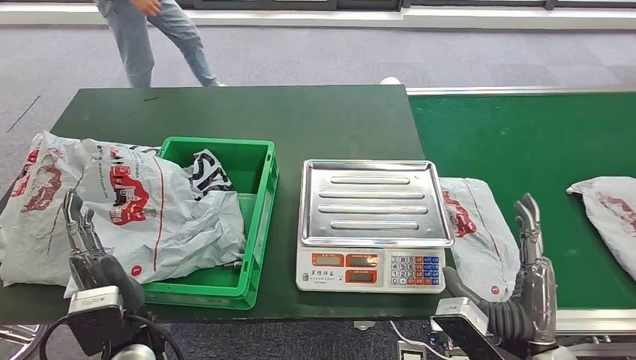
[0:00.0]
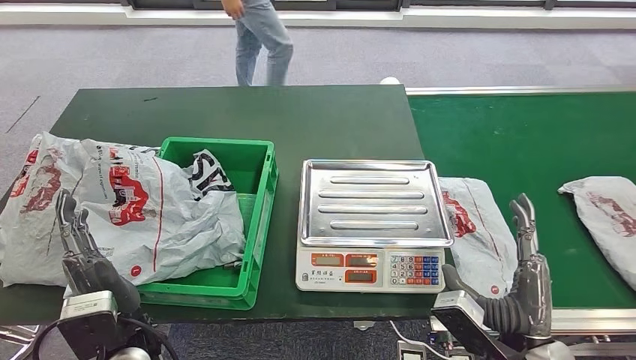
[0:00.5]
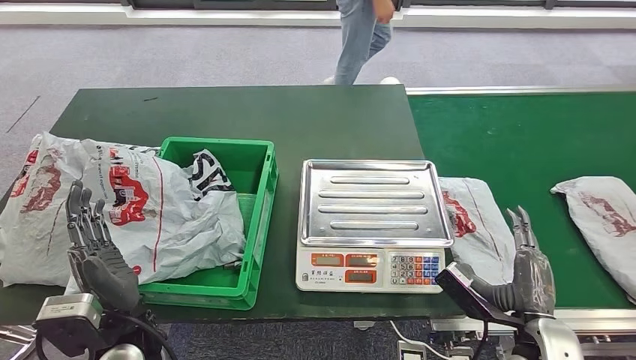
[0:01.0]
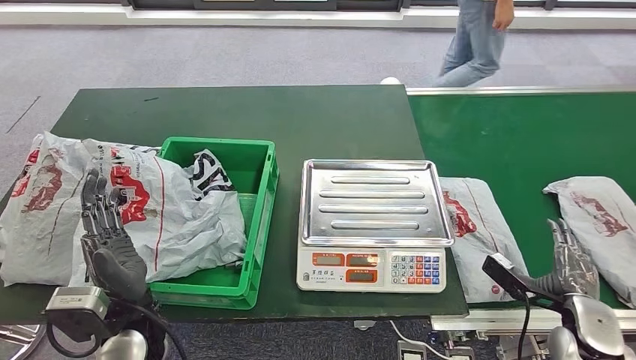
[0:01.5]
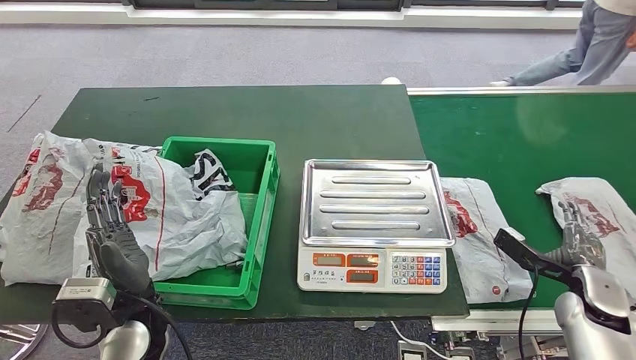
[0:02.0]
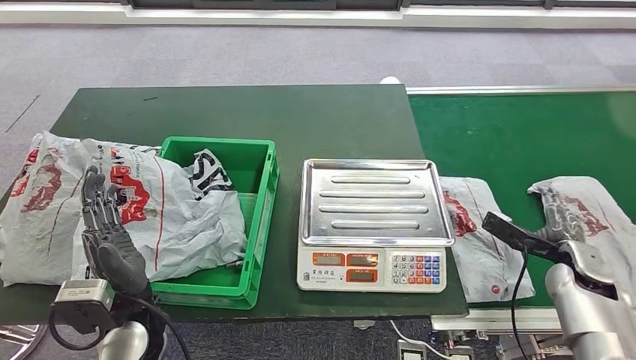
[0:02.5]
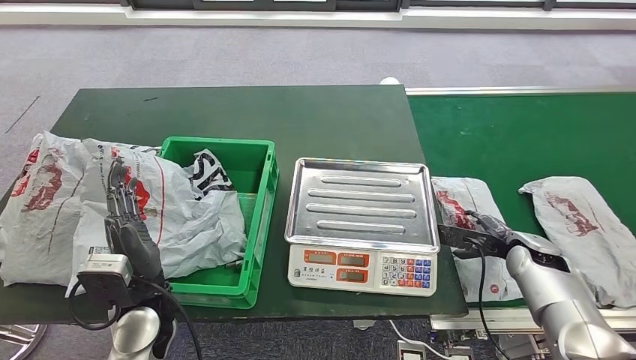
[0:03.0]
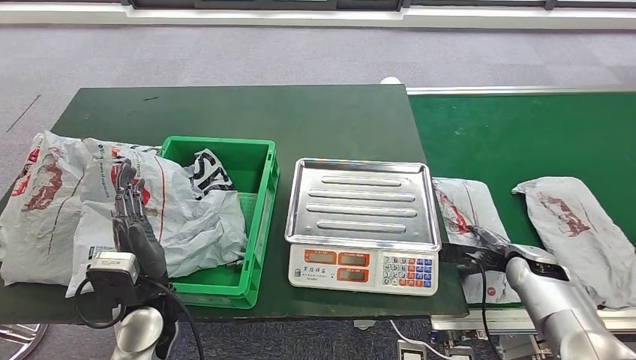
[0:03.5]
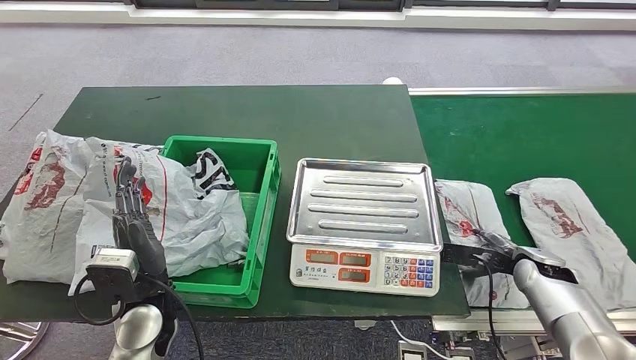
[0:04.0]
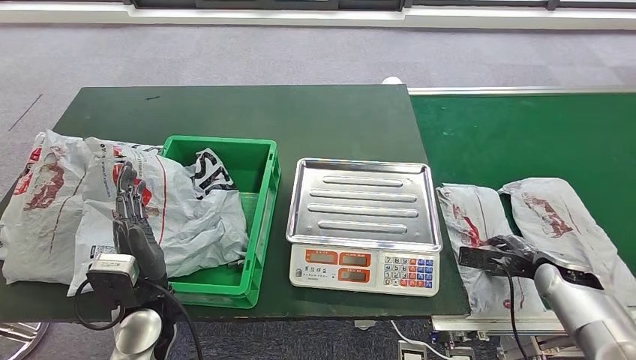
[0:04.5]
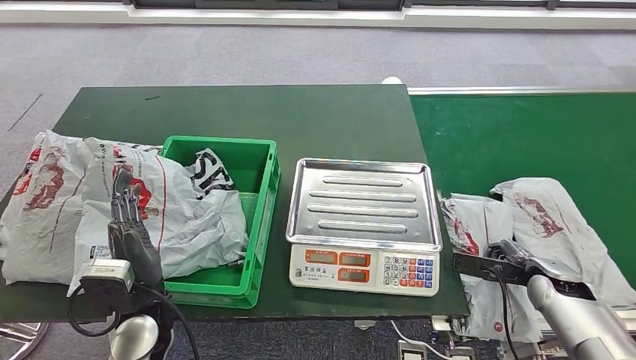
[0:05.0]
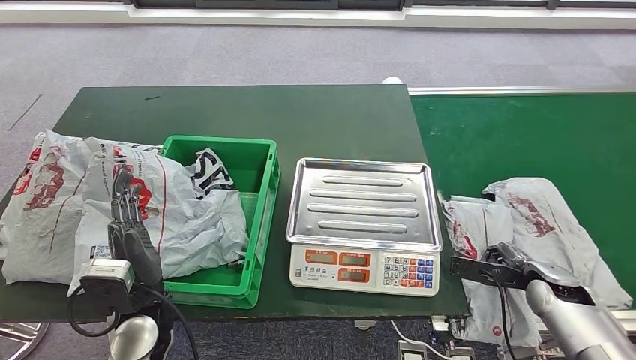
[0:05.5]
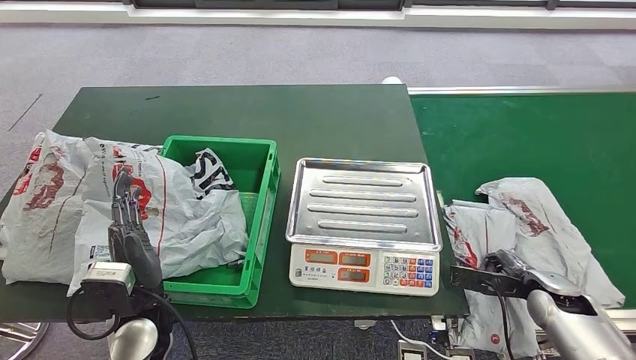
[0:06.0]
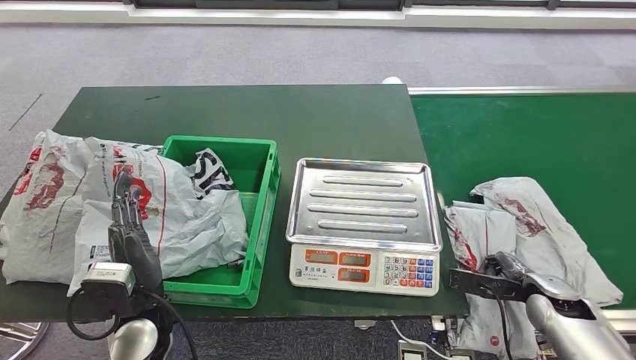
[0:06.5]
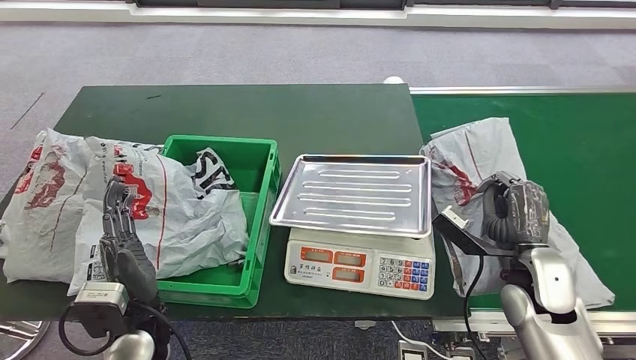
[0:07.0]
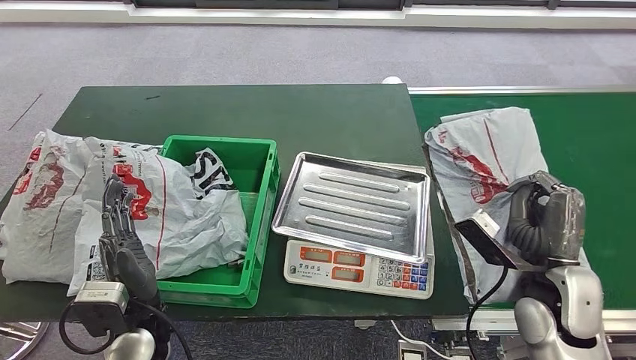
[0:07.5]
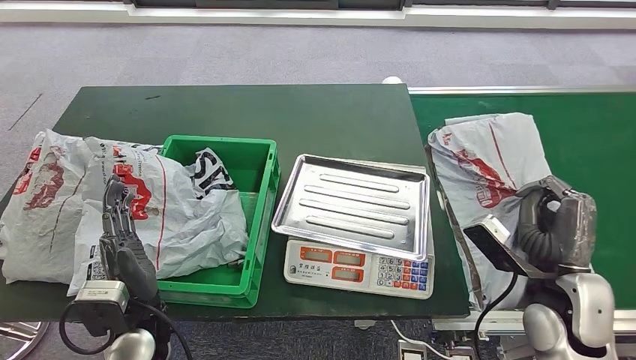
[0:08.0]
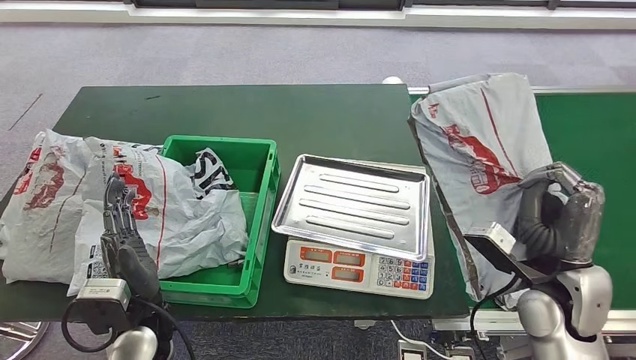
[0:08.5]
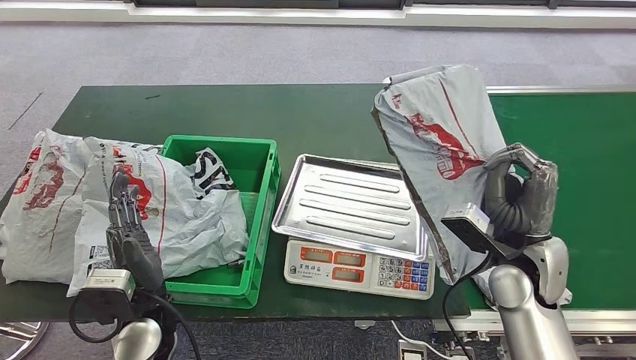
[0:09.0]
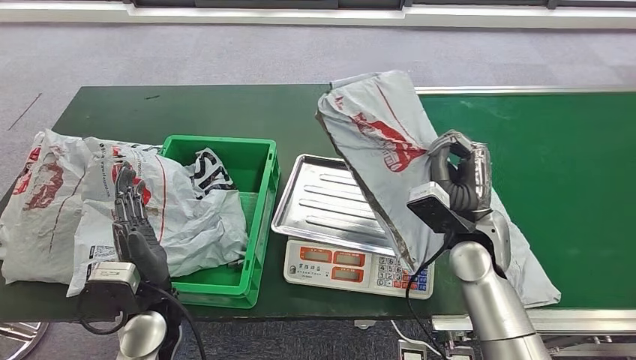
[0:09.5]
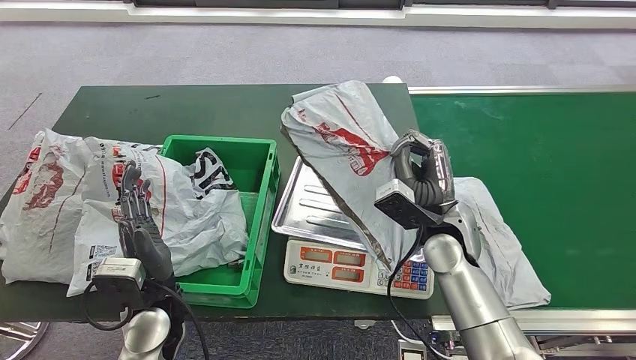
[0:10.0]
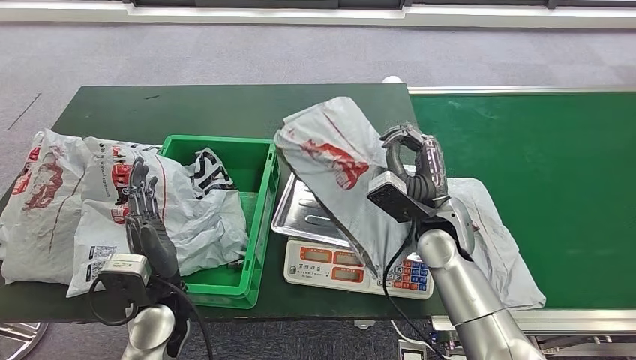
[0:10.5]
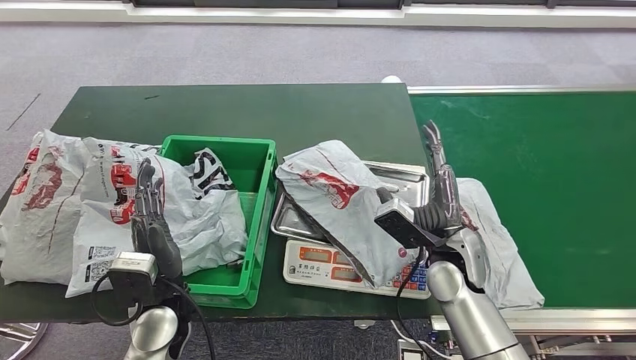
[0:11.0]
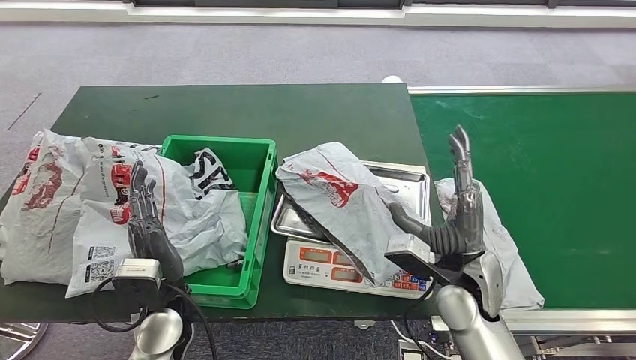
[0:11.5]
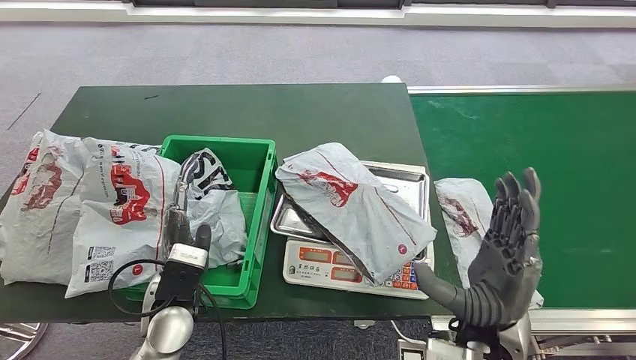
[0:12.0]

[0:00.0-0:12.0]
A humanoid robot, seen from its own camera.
Step, 0:01.0 to 0:09.0: Pick up the parcel from the conveyor belt.
0:04.0 to 0:06.0: The hands move only a little.

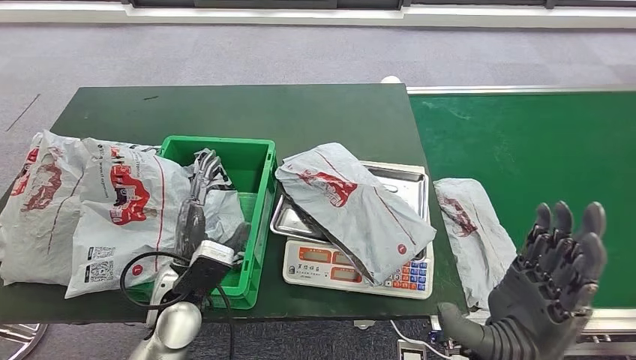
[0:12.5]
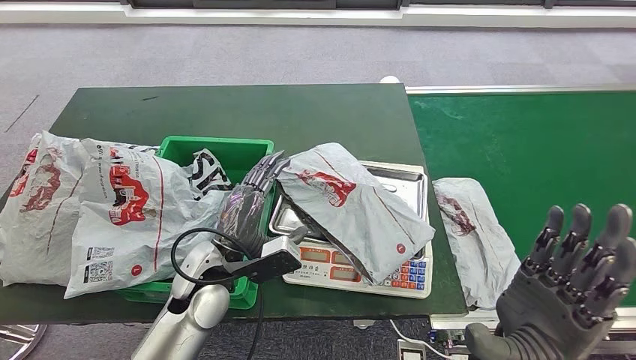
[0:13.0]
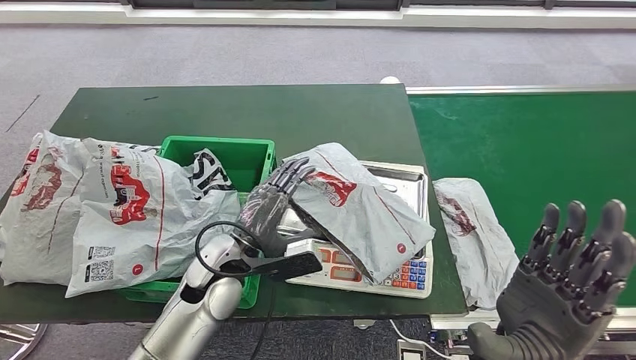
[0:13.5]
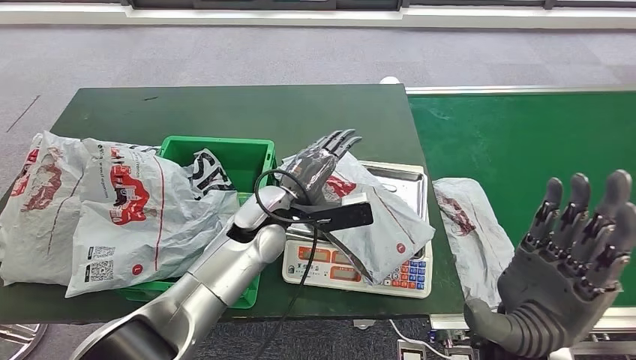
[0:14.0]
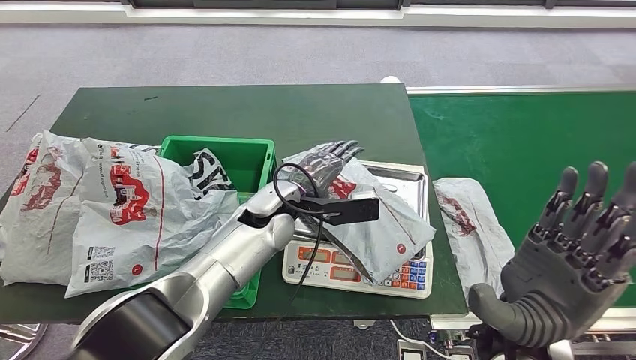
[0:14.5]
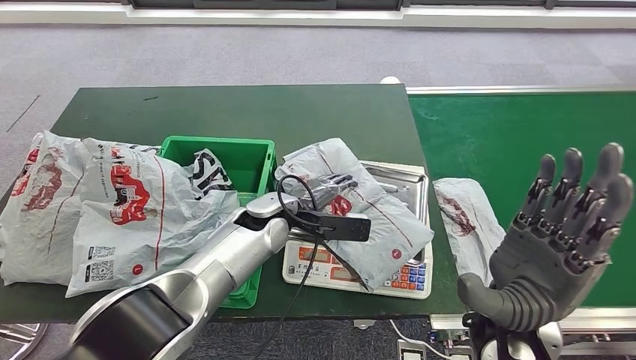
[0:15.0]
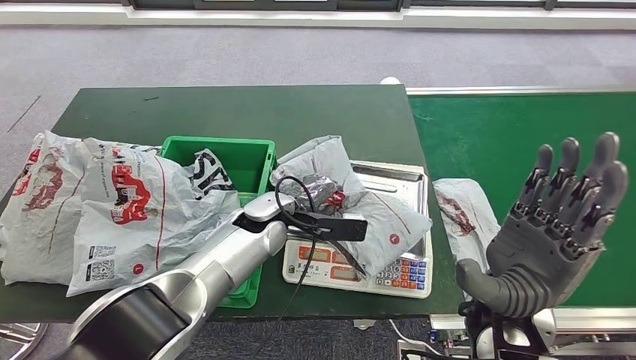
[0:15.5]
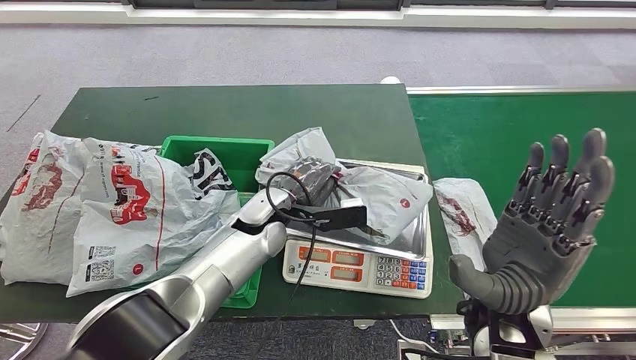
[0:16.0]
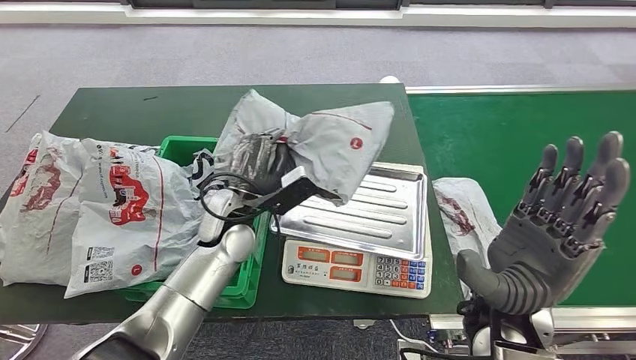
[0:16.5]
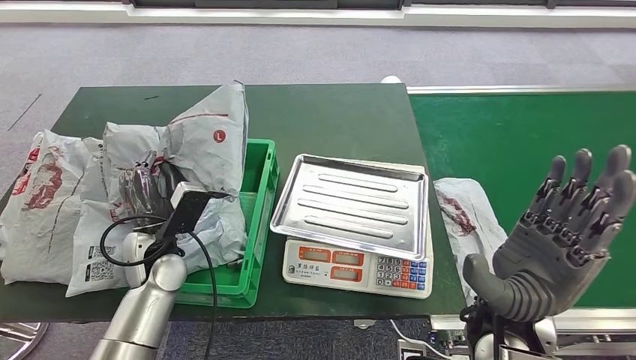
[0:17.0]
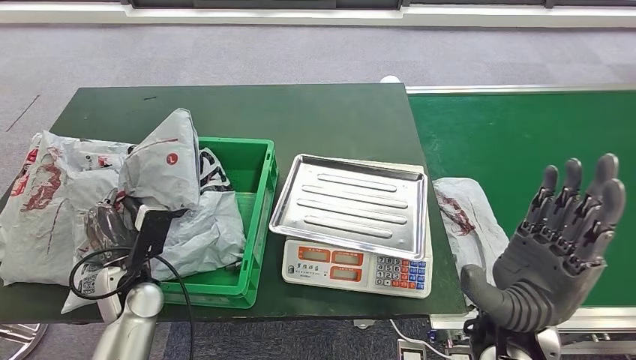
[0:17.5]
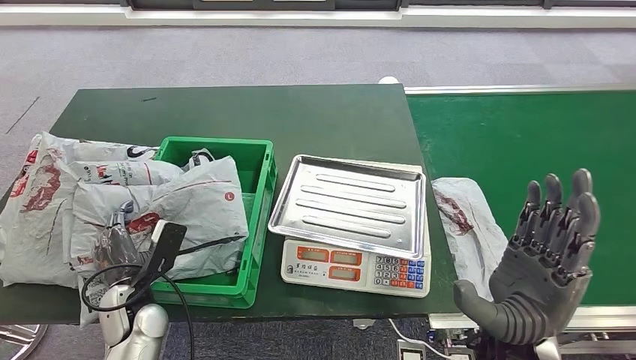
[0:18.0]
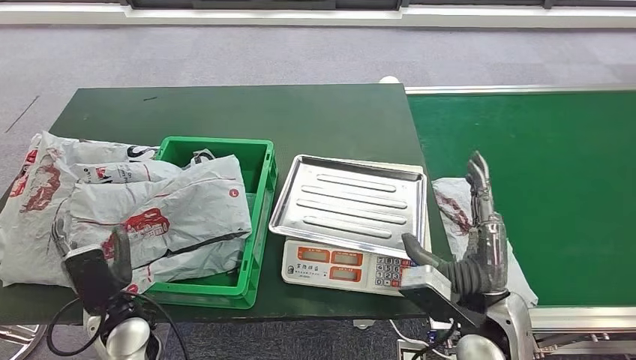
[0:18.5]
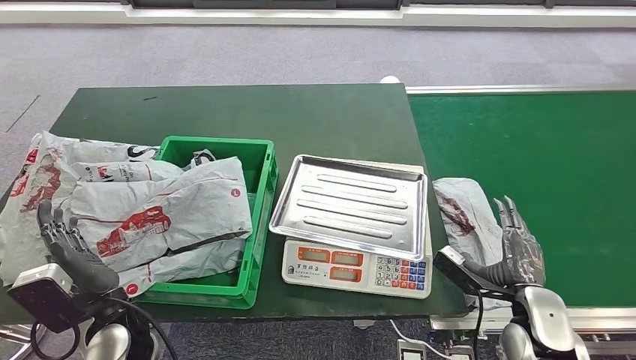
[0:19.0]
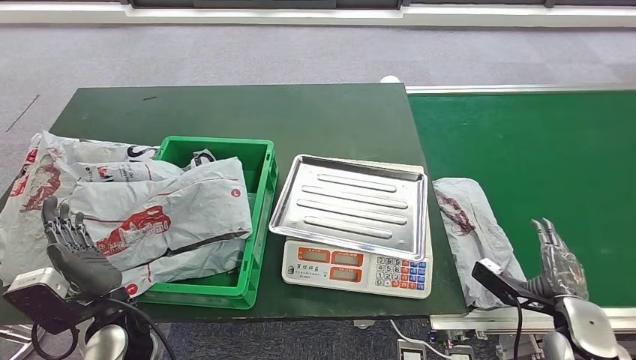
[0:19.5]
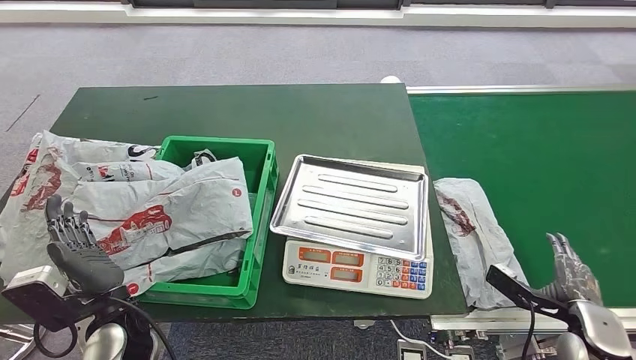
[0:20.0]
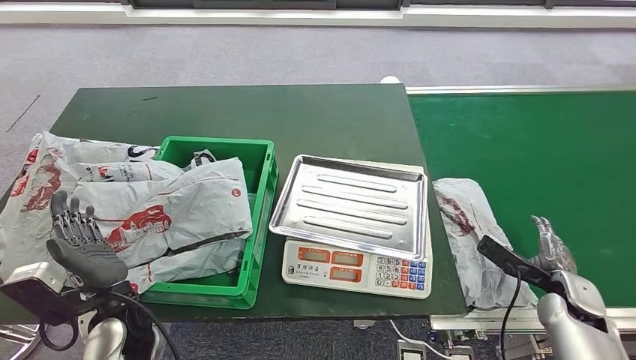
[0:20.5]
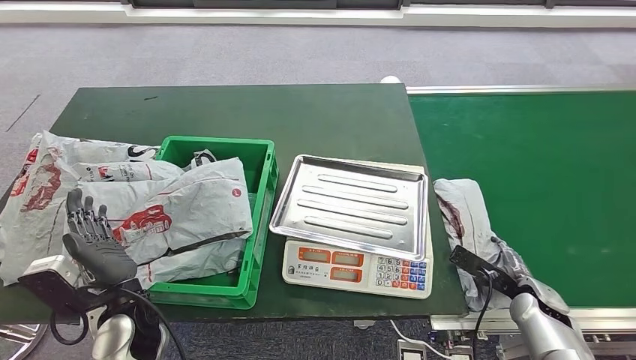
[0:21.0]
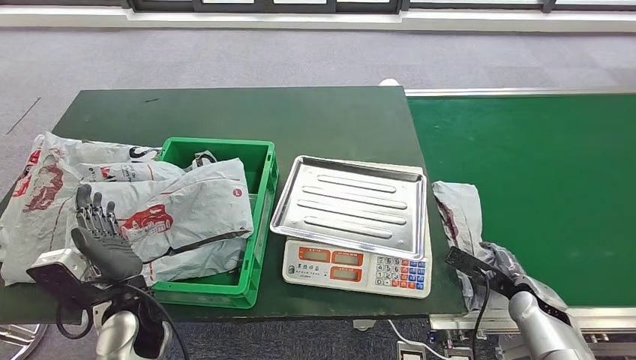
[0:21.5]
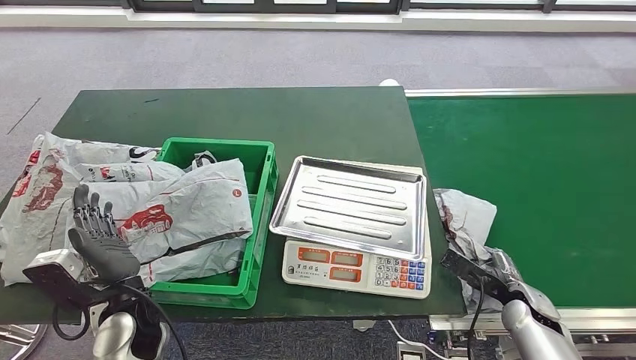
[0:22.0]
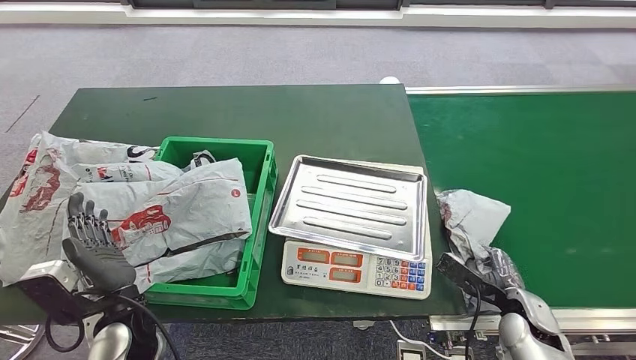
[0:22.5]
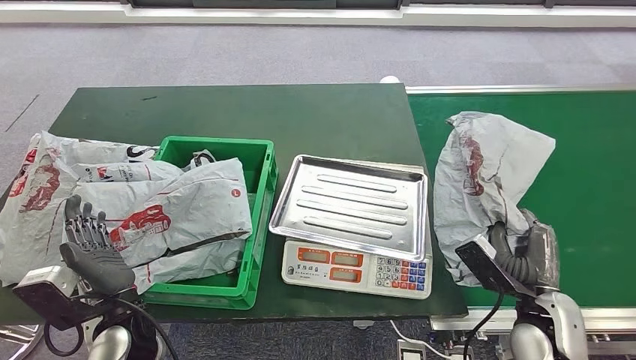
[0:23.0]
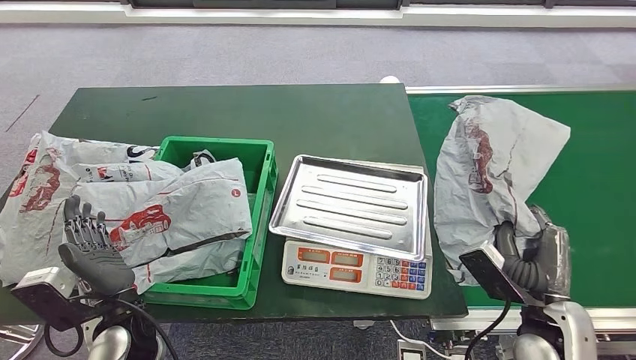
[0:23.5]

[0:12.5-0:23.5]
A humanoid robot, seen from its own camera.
Step, 0:12.5 to 0:17.0: Pick up the parcel from the inbound machine.
Step, 0:17.5 to 0:19.0: Place the parcel into the delivery box.
0:12.5 to 0:14.5: The left hand heads forward and to the right, covering some 20 cm.
